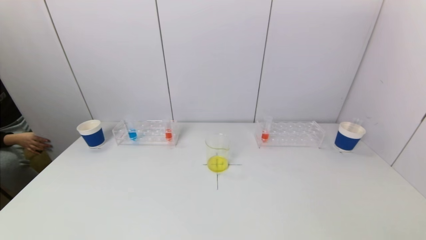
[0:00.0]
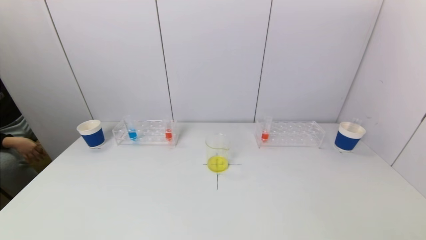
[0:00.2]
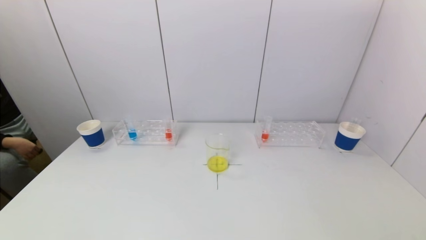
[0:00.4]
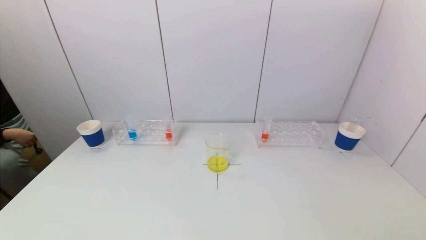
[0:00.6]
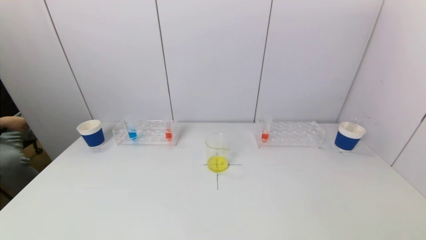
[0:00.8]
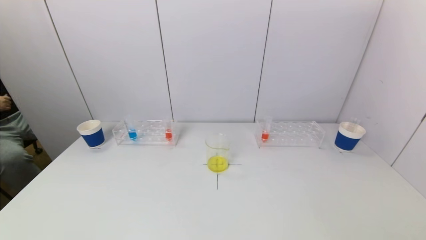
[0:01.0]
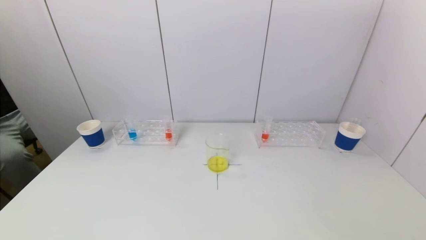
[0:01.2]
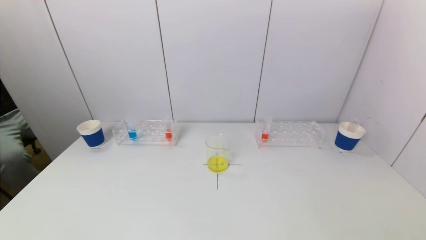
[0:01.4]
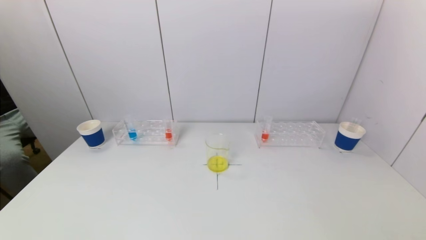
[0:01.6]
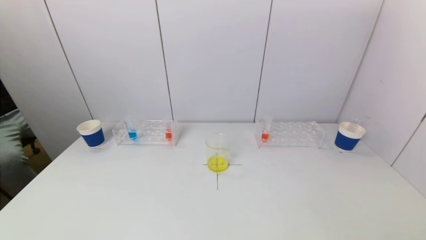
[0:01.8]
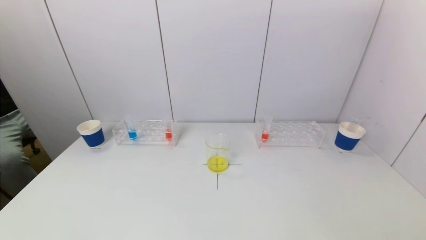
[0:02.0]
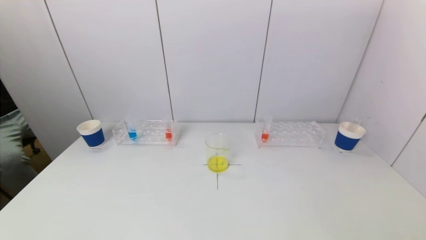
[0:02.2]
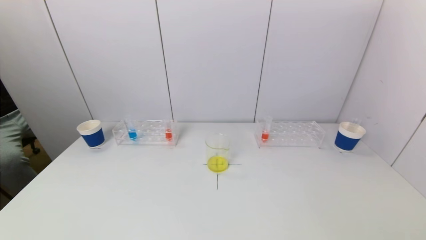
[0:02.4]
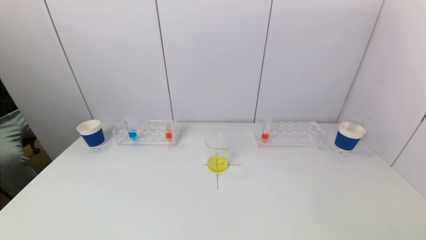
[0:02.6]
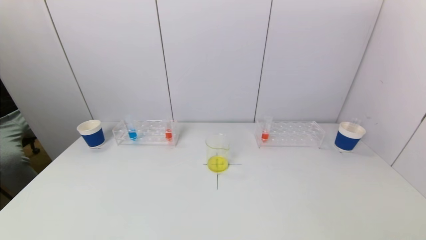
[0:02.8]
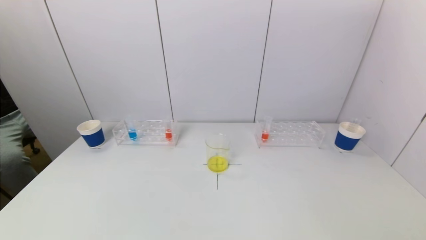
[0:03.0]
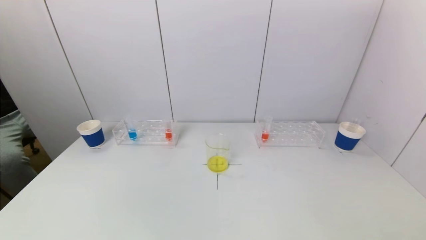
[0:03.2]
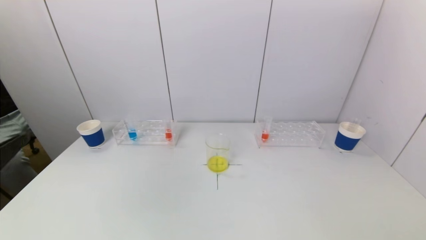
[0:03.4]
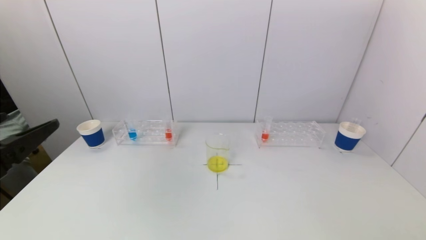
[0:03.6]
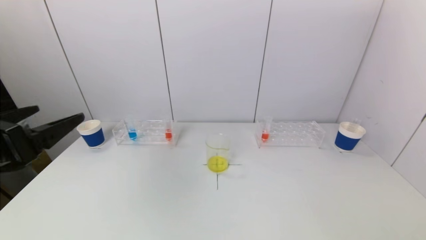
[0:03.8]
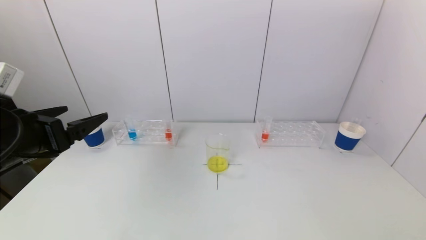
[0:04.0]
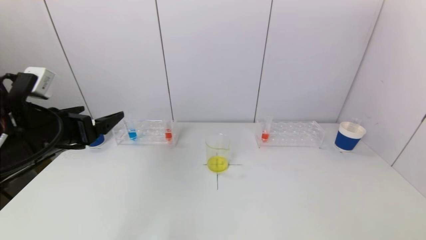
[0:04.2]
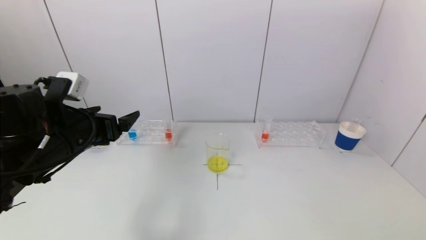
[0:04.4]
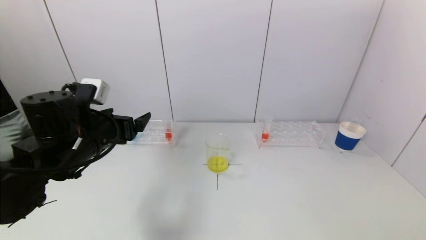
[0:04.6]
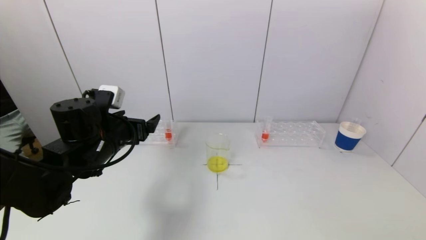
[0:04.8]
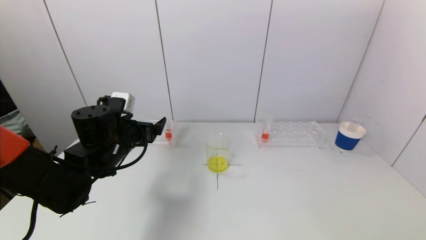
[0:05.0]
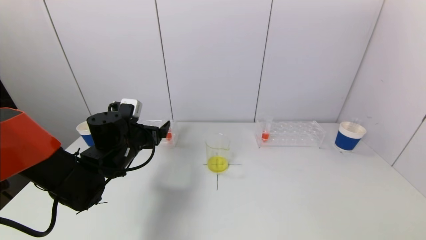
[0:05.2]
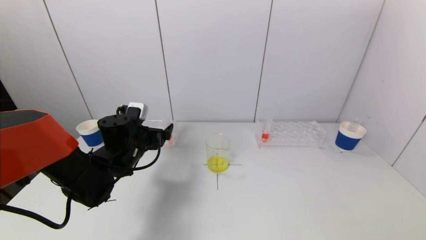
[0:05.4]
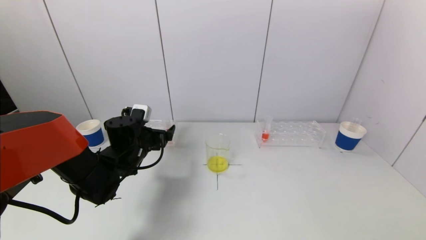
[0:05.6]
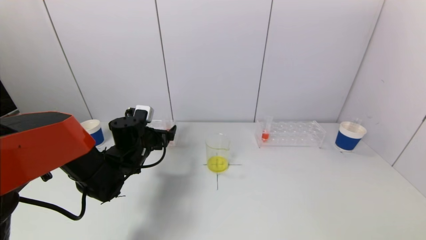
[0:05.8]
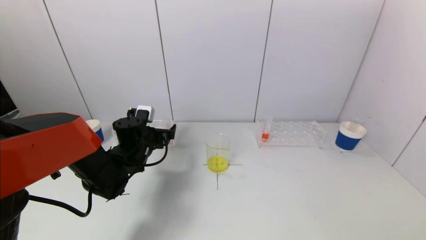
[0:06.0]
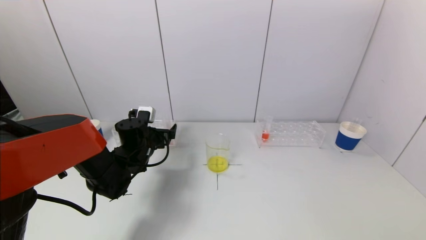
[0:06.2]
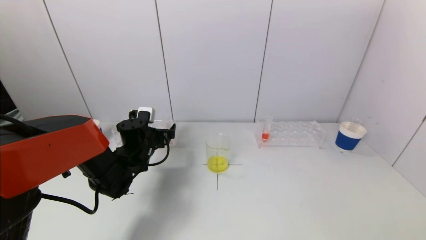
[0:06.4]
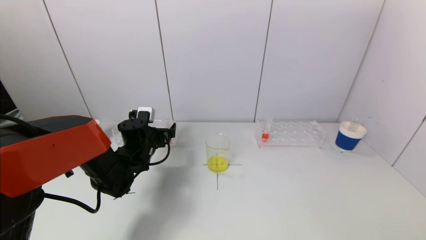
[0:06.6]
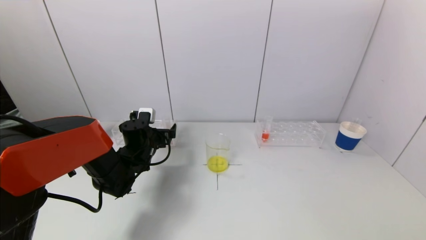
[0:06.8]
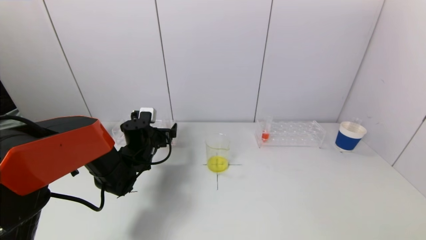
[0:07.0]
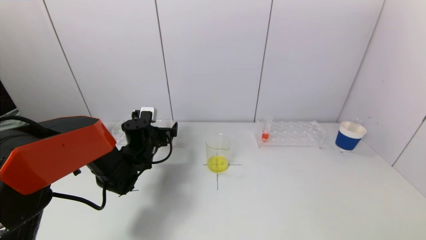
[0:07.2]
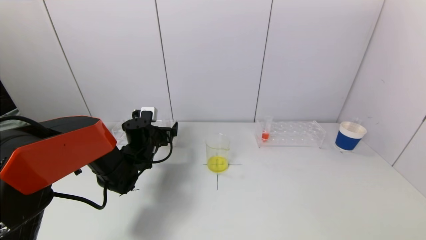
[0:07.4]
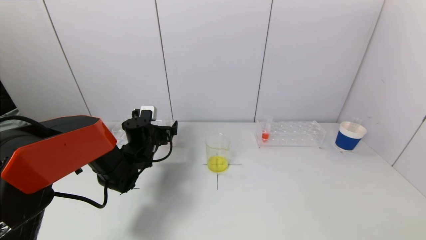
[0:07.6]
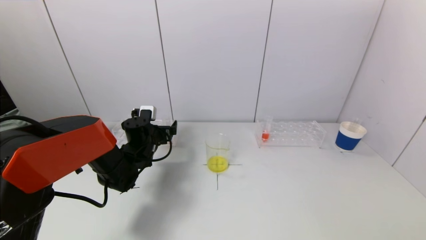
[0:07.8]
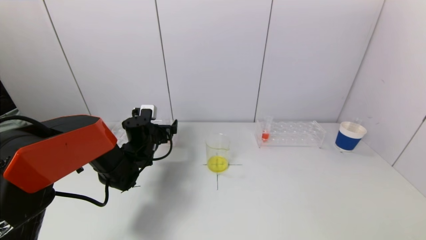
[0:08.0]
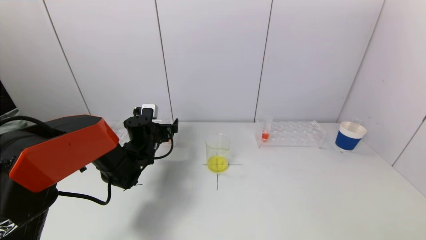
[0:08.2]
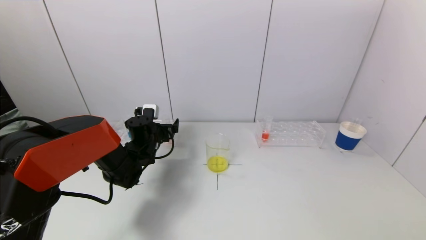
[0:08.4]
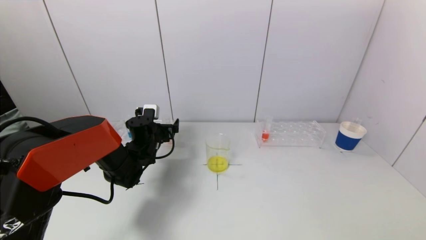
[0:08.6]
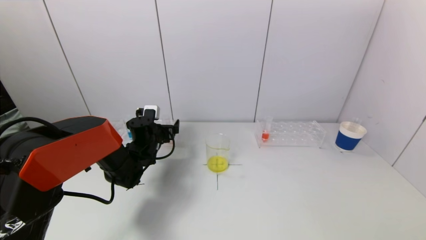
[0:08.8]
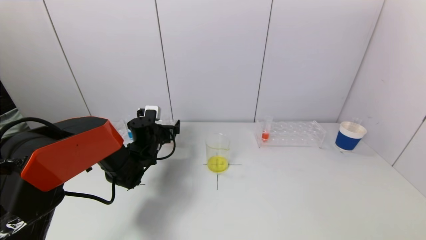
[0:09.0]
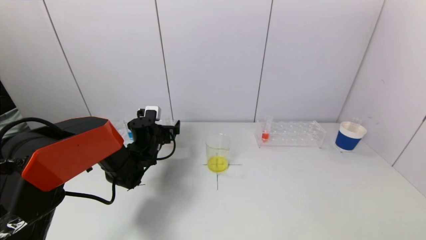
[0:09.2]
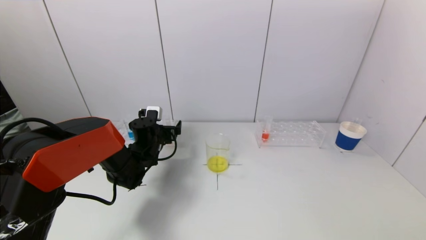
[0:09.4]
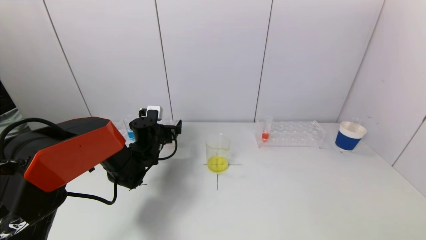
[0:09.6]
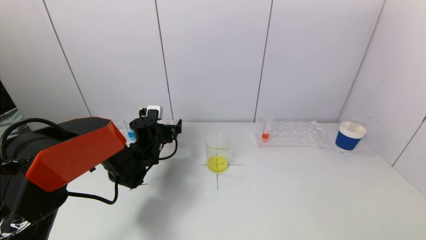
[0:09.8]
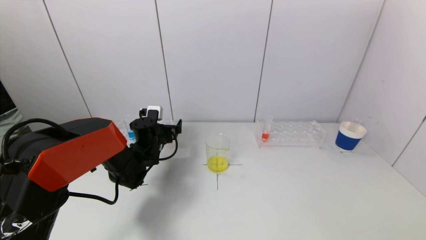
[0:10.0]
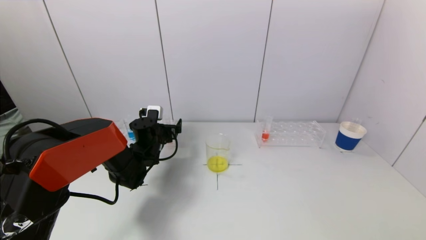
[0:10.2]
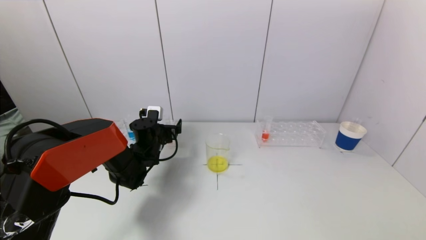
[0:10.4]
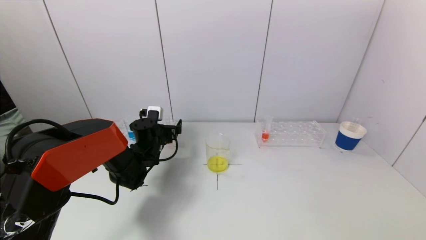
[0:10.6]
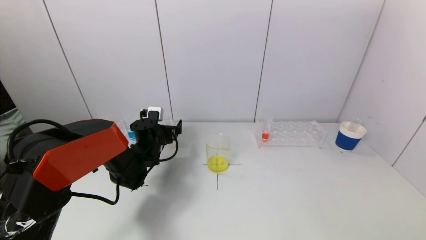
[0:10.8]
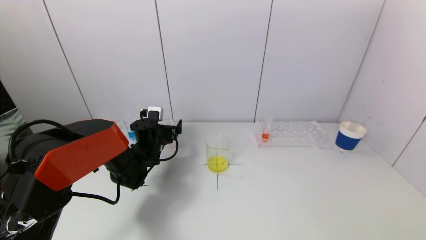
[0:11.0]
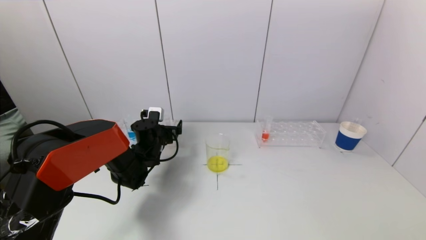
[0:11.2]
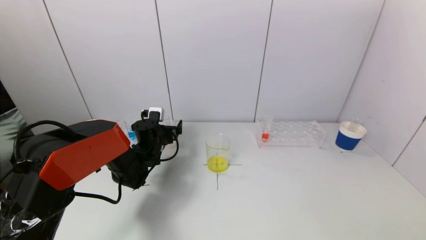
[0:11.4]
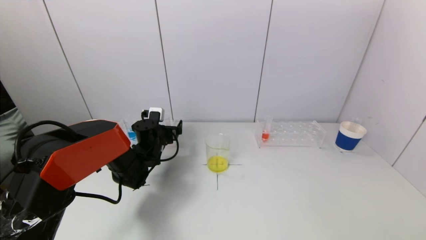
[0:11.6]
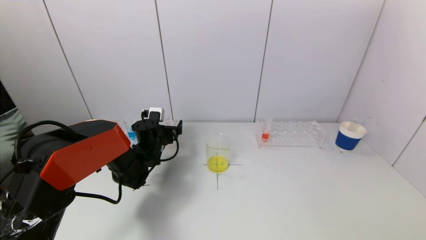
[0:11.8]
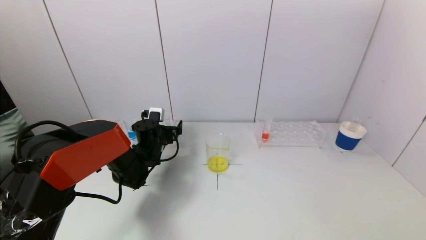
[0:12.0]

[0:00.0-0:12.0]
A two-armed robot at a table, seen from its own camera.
Task of the whole recording: pick up a test tube with pigment on left test tube rack and a test tube with pigment on right test tube rack by grippers and pour them into the beaker.
0:00.0 to 0:01.6: There are only small adjustments of the grippers.
0:03.0 to 0:04.4: The left gripper is displaced forward by about 25 cm.
0:04.4 to 0:06.0: The left gripper heads forward, downward and to the right, covering about 20 cm.
0:06.0 to 0:09.0: The grippers move only a little.
0:09.0 to 0:10.4: Both grippers stay put.
0:10.4 to 0:12.0: Neither gripper changes place.

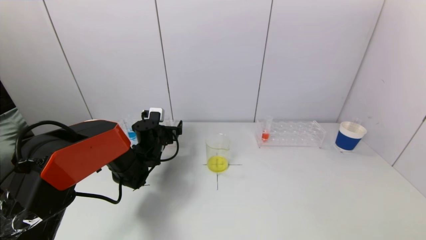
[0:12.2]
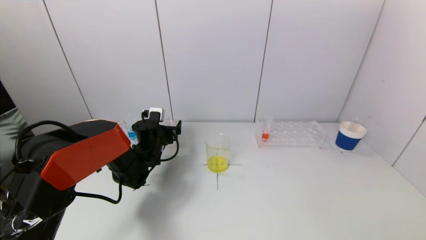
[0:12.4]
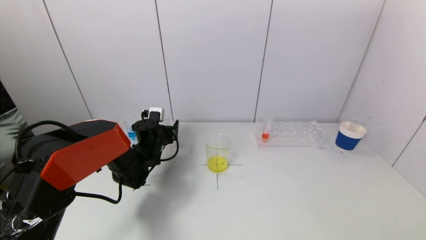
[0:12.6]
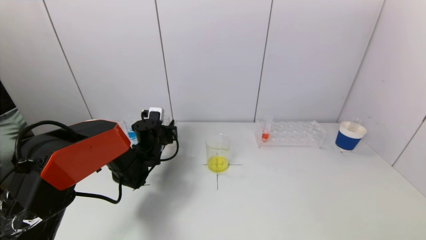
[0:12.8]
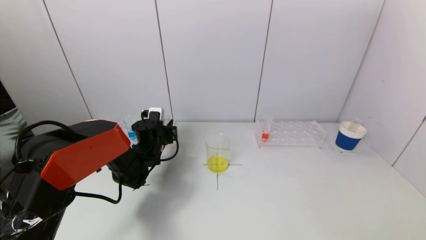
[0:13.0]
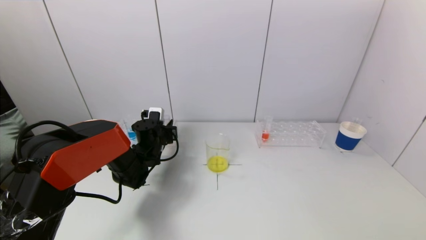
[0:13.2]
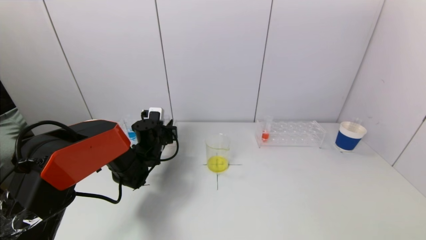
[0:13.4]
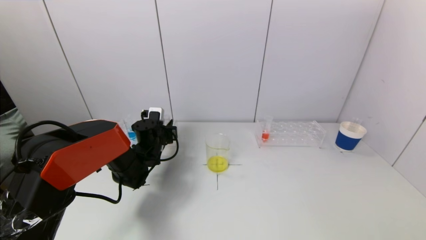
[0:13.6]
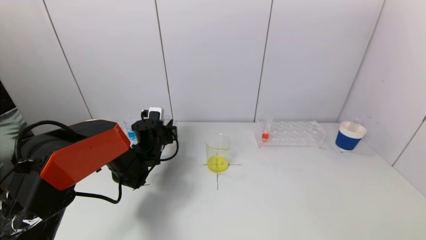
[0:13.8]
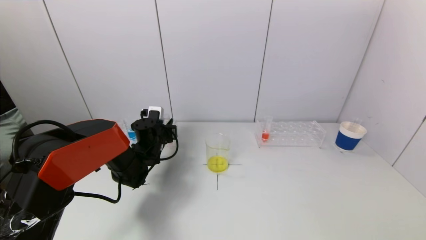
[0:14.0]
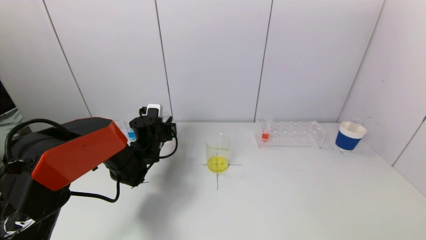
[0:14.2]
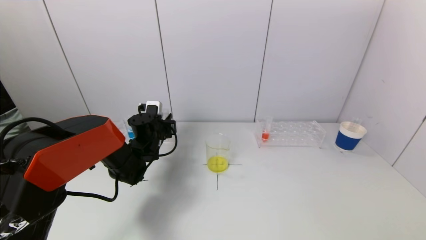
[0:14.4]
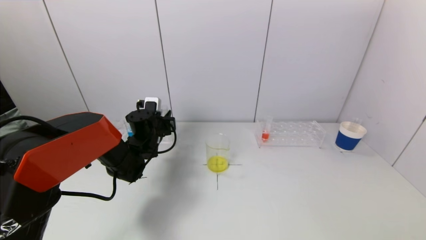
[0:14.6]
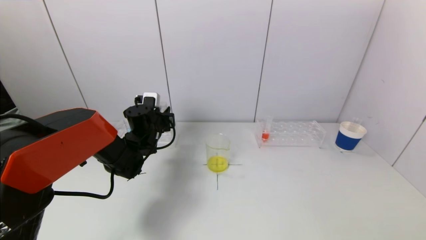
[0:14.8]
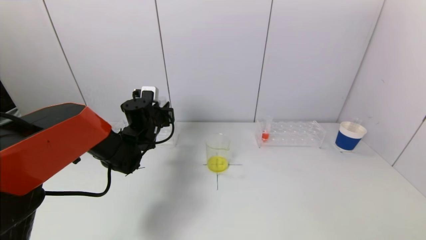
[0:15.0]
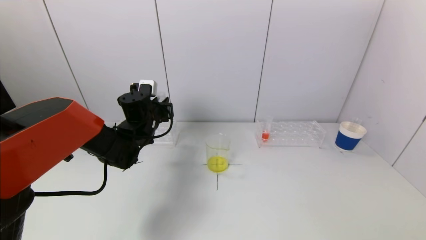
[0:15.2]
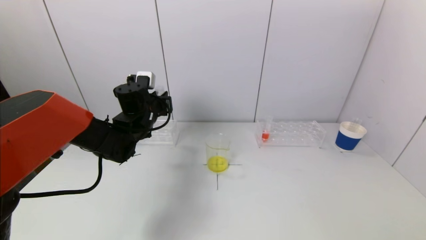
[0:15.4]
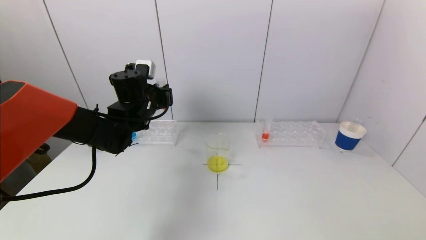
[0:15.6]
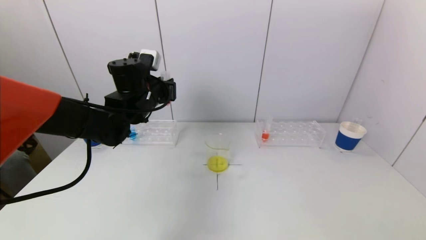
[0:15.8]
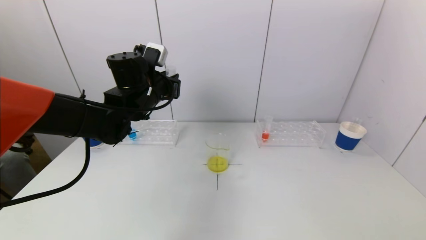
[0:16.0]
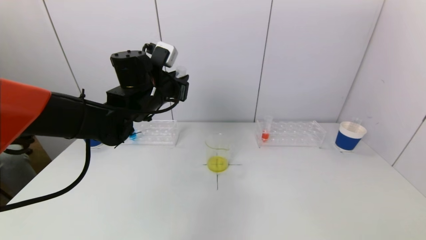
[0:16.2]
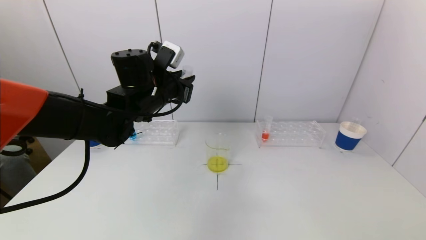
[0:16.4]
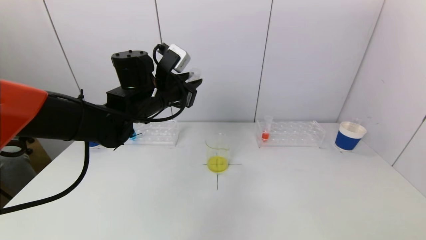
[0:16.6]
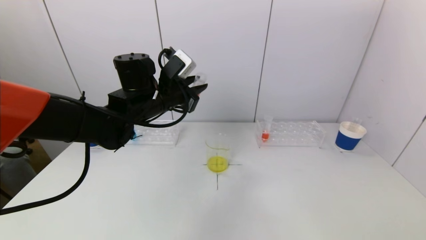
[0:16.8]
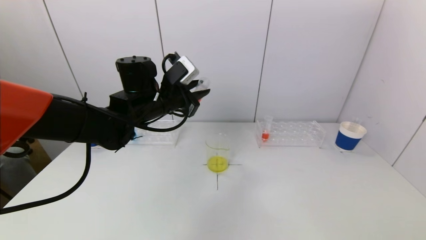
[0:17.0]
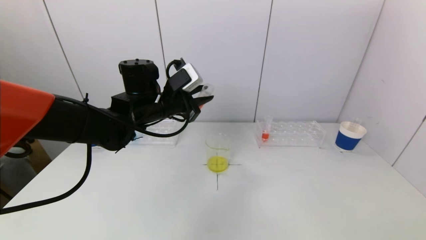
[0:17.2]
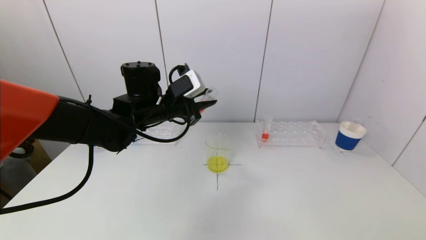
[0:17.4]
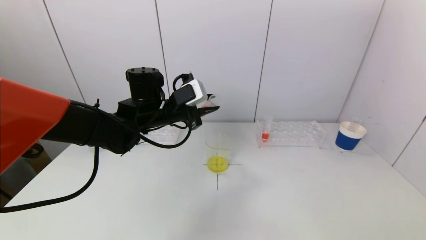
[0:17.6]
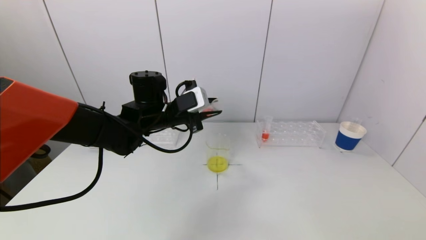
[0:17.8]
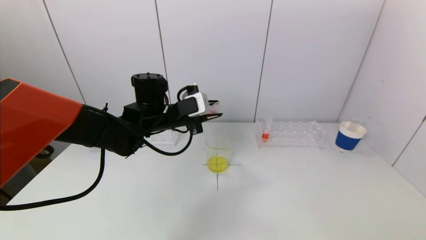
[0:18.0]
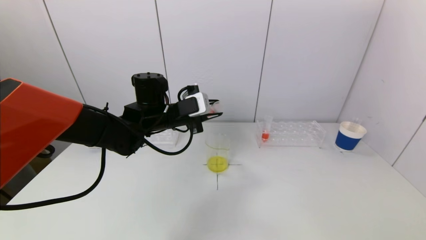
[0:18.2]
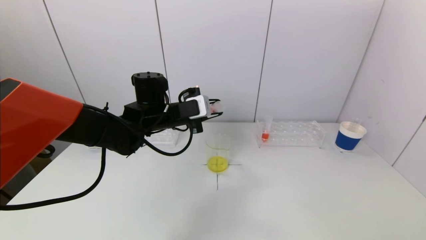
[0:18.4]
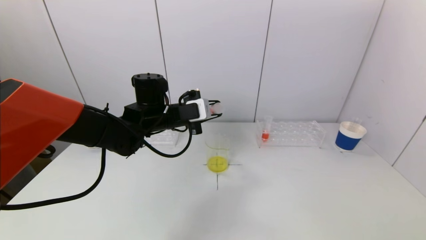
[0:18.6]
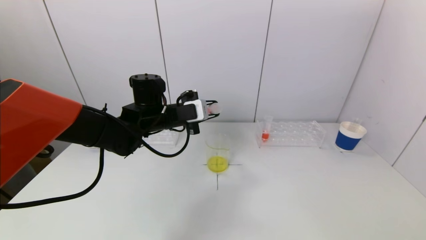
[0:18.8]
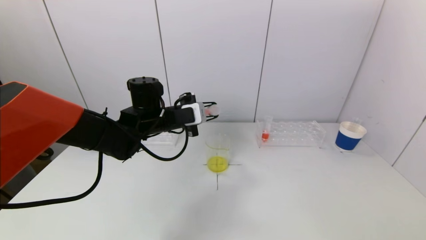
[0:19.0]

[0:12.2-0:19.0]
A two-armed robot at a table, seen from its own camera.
Task of the whole recording: pick up a test tube with pigment on left test tube rack and a test tube with pigment on right test tube rack by grippers and pour them into the beaker.
0:13.6 to 0:15.0: The left gripper shifts about 5 cm upward.
0:15.0 to 0:16.2: The left gripper goes about 10 cm upward.
0:17.6 to 0:19.0: There are only small adjustments of the grippers.
